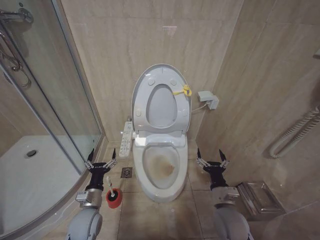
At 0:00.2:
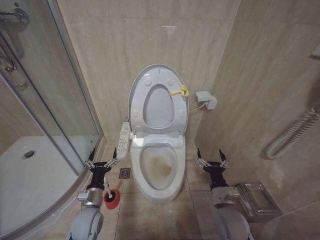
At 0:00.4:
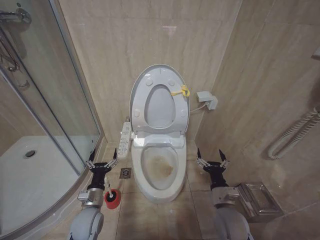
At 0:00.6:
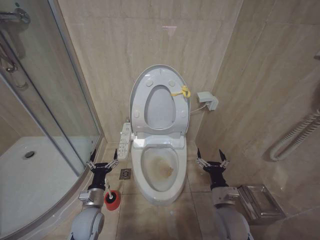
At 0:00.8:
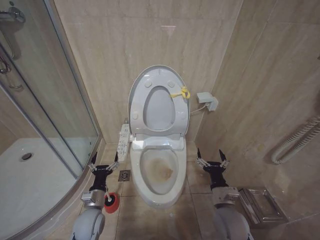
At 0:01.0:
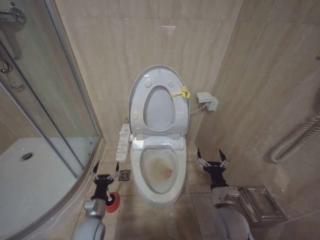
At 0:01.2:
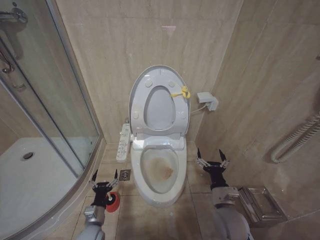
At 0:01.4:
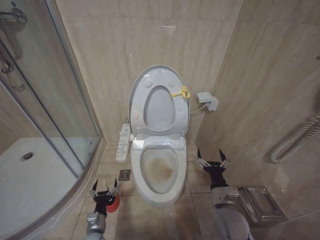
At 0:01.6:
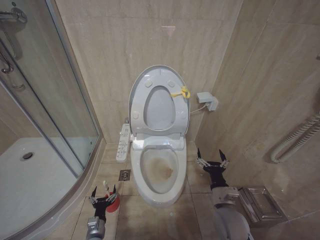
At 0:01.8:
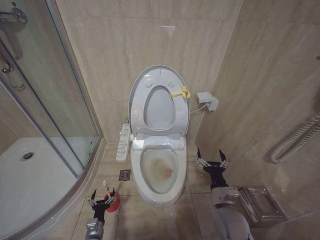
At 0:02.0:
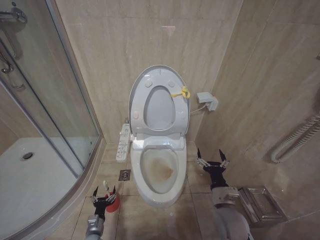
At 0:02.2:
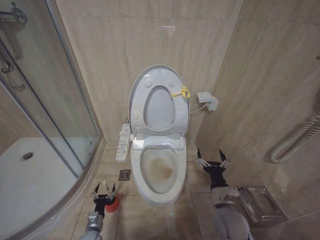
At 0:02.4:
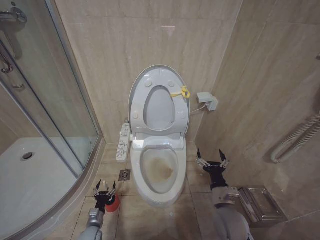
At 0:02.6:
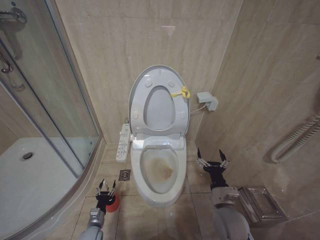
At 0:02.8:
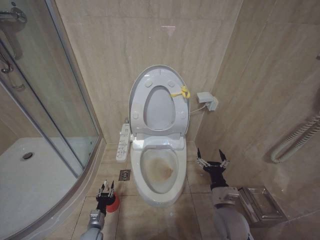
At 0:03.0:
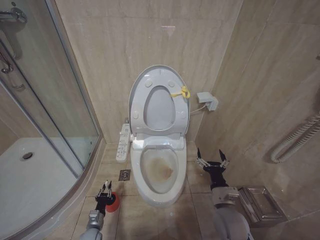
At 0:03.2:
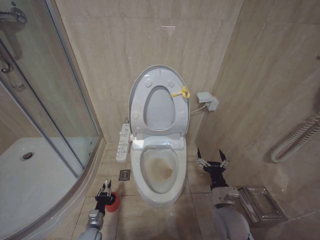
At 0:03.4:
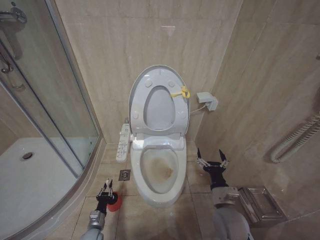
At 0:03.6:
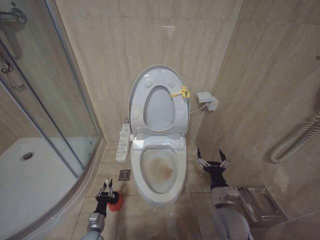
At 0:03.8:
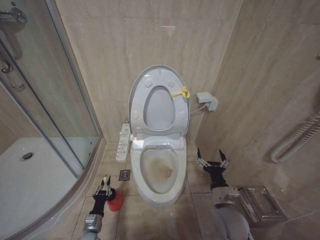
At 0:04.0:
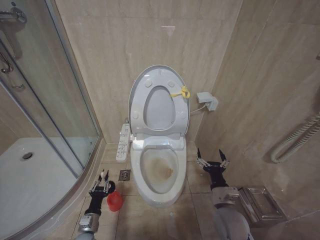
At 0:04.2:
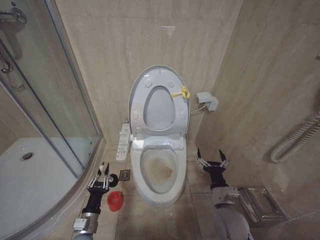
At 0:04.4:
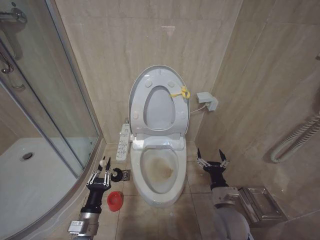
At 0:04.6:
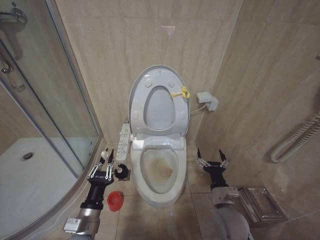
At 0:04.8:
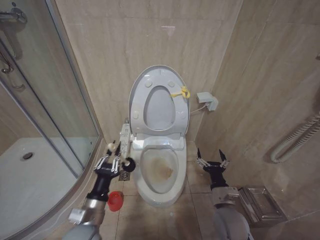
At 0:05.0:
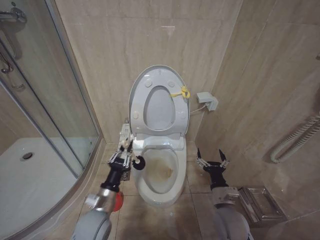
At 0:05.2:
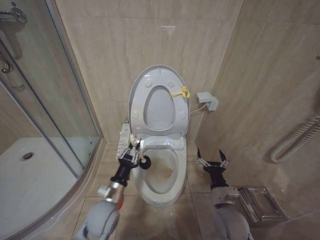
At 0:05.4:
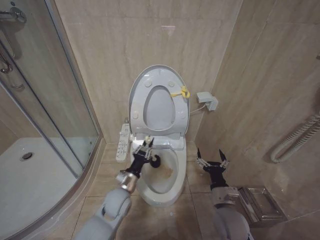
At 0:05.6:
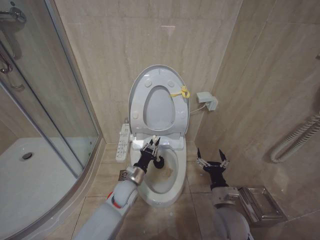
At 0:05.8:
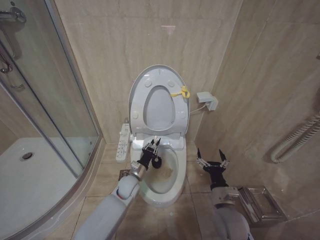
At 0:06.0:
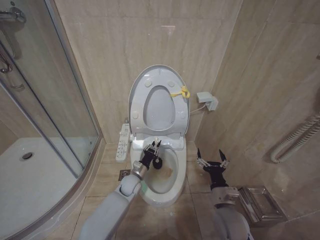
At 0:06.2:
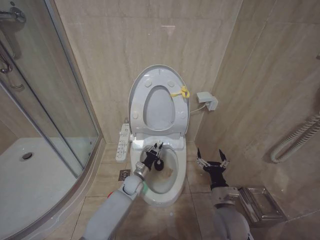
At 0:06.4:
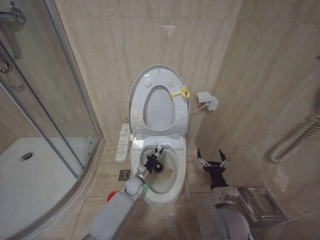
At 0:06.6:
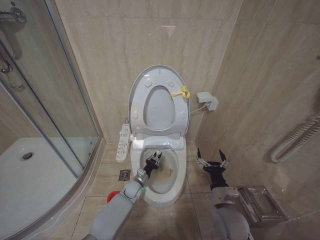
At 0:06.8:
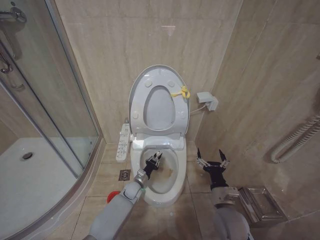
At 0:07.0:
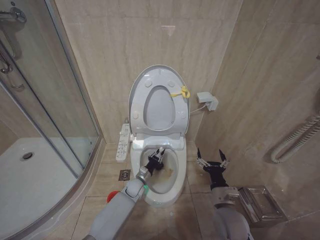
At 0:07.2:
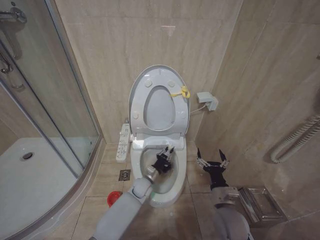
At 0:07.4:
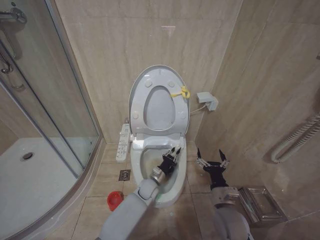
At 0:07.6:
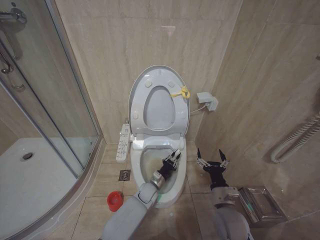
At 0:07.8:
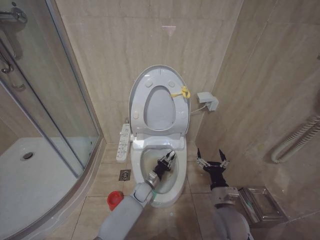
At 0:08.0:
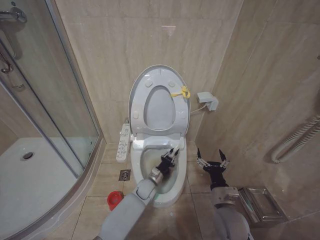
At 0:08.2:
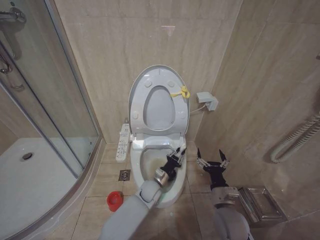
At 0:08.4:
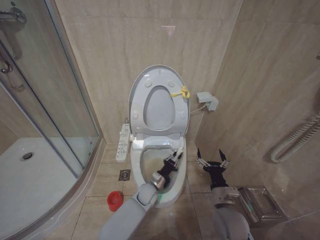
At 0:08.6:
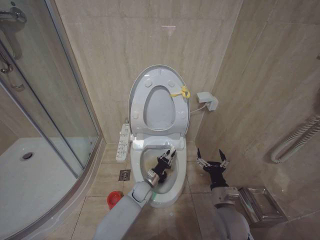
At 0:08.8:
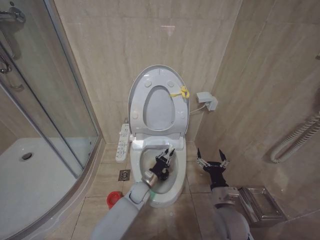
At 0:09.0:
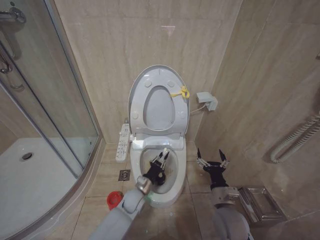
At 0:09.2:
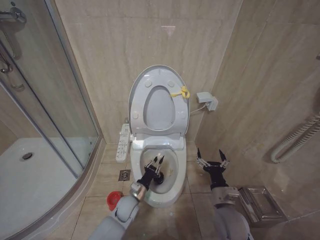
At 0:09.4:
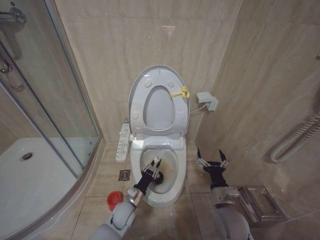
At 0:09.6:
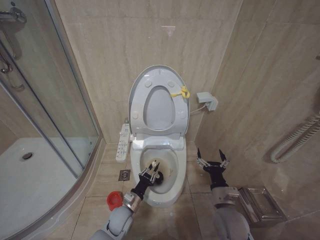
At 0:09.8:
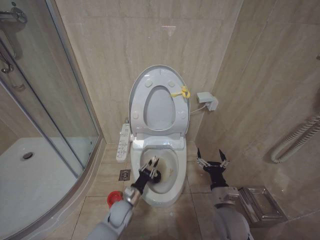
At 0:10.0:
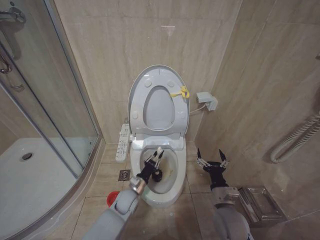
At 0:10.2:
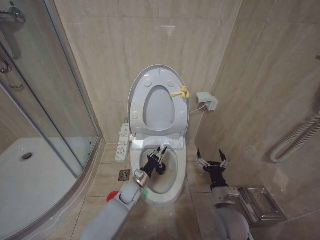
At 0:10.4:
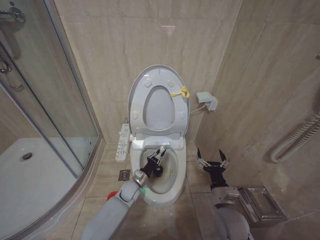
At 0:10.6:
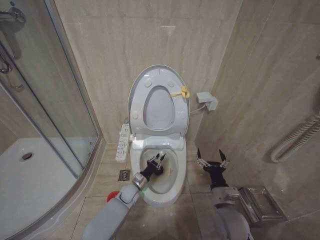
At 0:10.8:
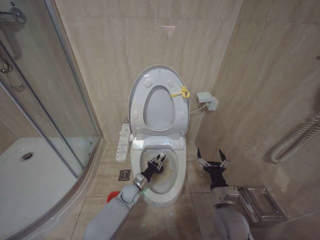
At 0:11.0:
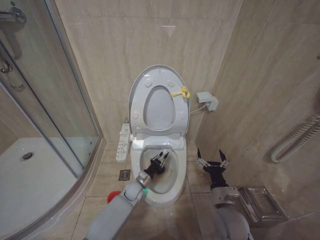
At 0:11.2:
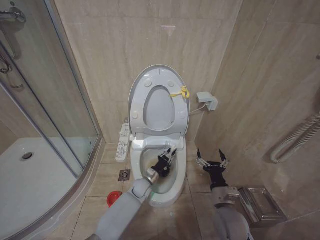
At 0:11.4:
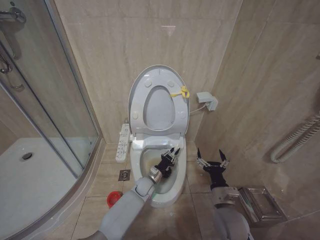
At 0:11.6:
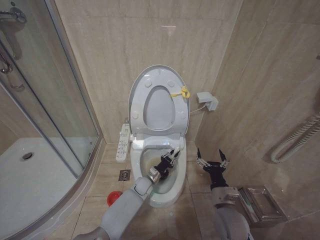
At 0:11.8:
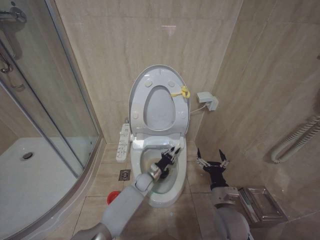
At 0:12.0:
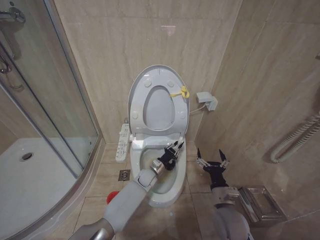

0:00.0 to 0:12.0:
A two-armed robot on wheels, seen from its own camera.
Task of the whole recording: Open the toilet lid, clean the toilet bowl with a toilet brush, close the toilet lid, and flush.
0:00.0 to 0:01.6: The left gripper goes roughly 15 cm downward.
0:01.6 to 0:03.0: The left gripper shifts roughly 5 cm downward, and closes up.
0:03.0 to 0:04.4: The left gripper moves upward, some 20 cm.
0:04.4 to 0:06.0: The left gripper is displaced forward and to the right by some 25 cm.
0:06.0 to 0:07.6: The left gripper travels to the right and downward by some 10 cm.
0:07.6 to 0:09.0: The left gripper is displaced to the left by roughly 5 cm.
0:09.0 to 0:10.4: The left gripper moves about 5 cm backward and comes back.
0:10.4 to 0:12.0: The left gripper shifts some 10 cm to the right and forward.

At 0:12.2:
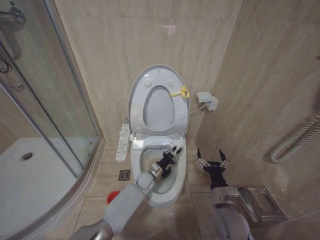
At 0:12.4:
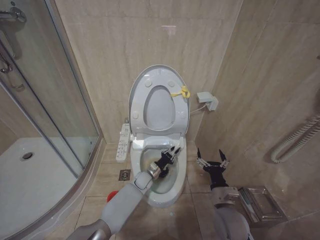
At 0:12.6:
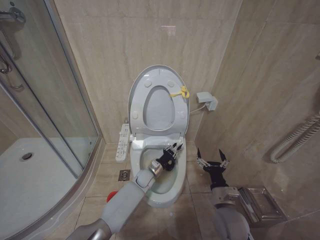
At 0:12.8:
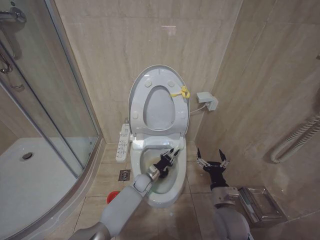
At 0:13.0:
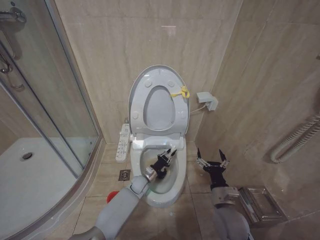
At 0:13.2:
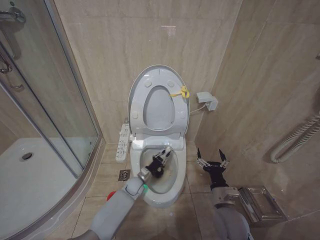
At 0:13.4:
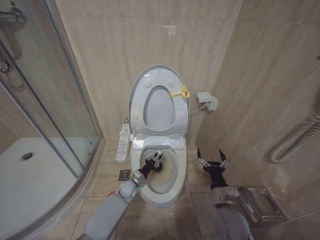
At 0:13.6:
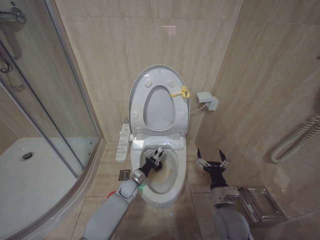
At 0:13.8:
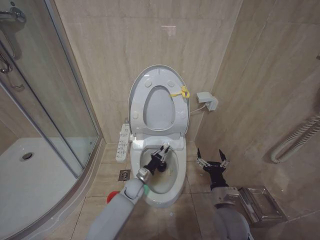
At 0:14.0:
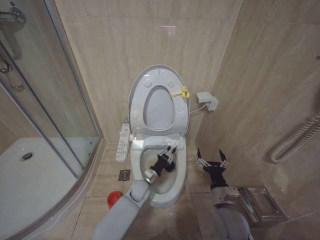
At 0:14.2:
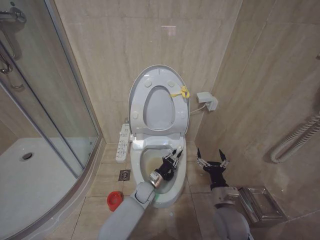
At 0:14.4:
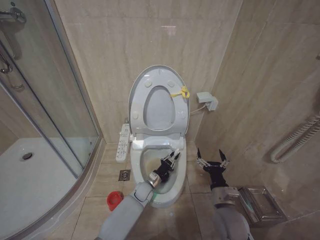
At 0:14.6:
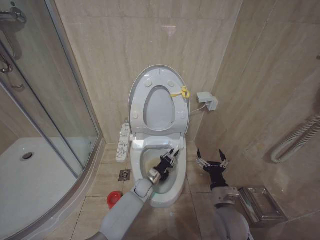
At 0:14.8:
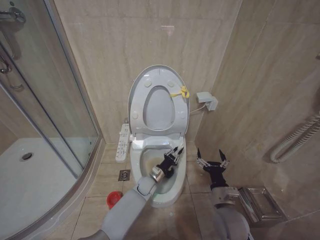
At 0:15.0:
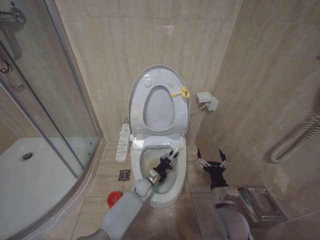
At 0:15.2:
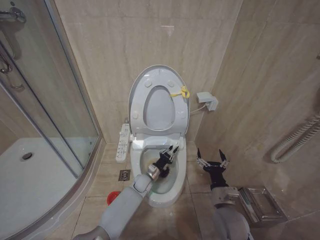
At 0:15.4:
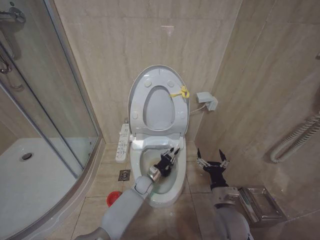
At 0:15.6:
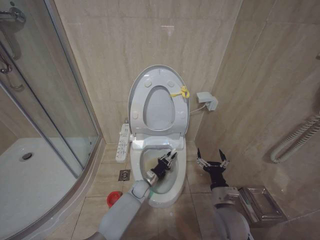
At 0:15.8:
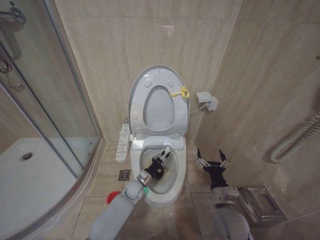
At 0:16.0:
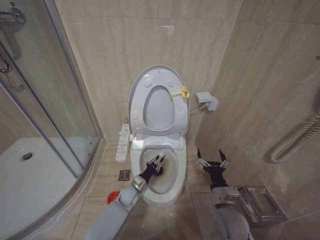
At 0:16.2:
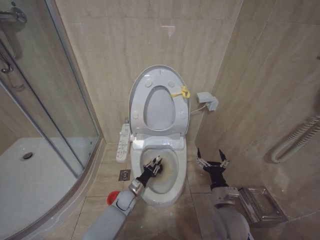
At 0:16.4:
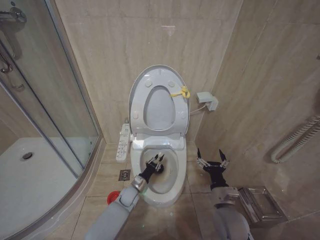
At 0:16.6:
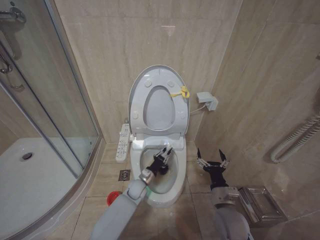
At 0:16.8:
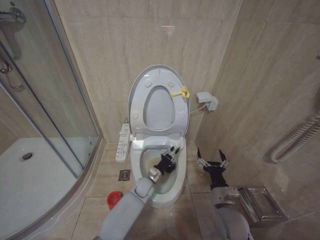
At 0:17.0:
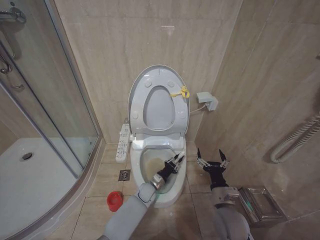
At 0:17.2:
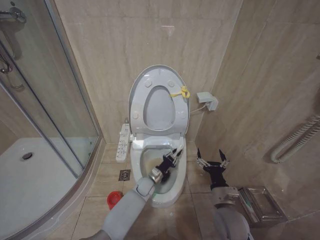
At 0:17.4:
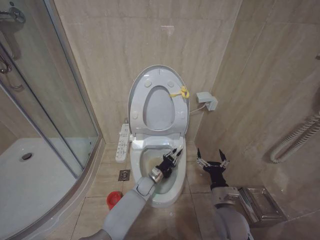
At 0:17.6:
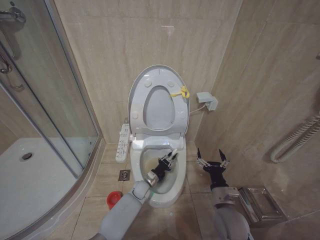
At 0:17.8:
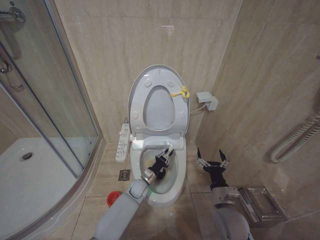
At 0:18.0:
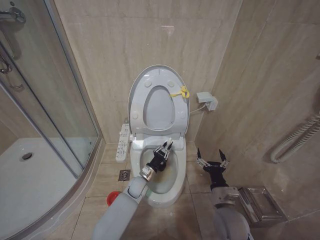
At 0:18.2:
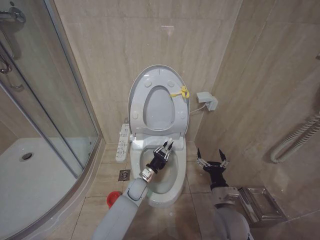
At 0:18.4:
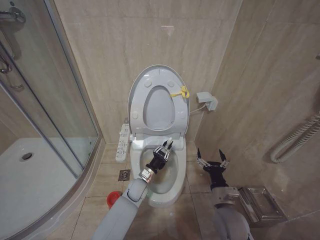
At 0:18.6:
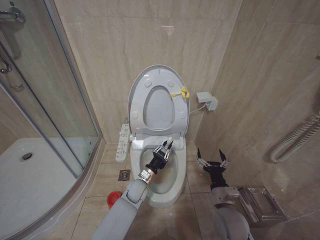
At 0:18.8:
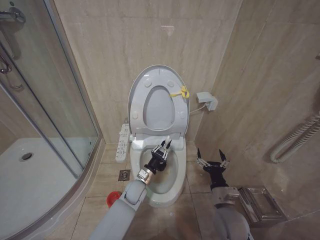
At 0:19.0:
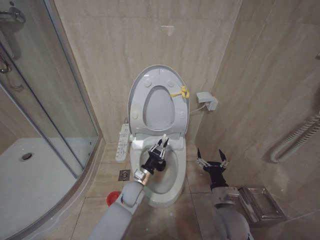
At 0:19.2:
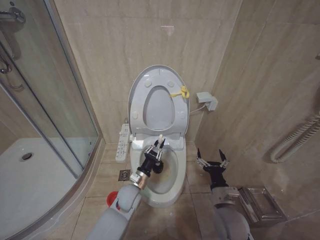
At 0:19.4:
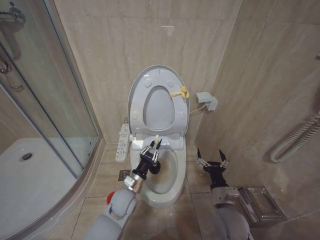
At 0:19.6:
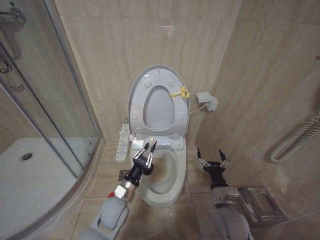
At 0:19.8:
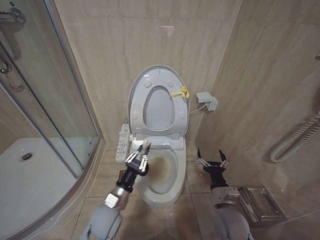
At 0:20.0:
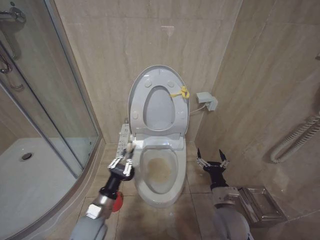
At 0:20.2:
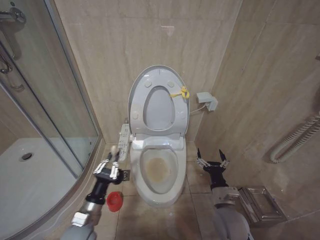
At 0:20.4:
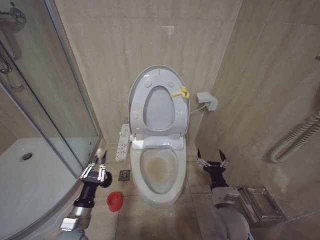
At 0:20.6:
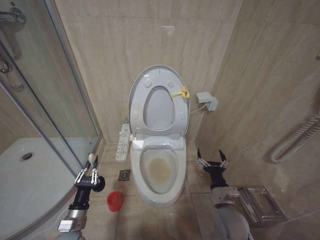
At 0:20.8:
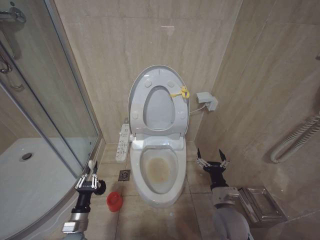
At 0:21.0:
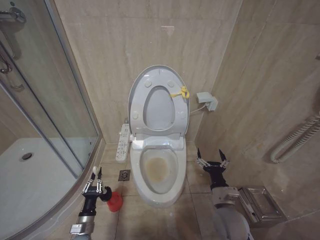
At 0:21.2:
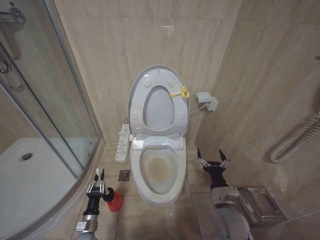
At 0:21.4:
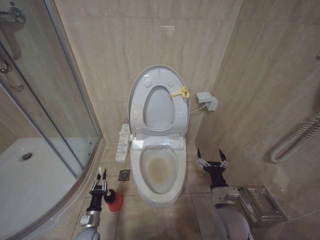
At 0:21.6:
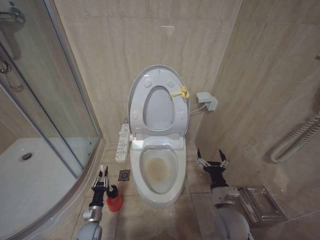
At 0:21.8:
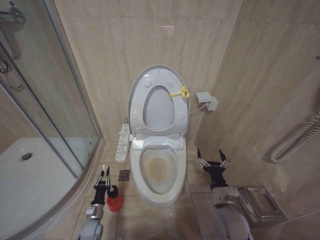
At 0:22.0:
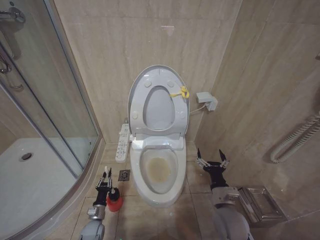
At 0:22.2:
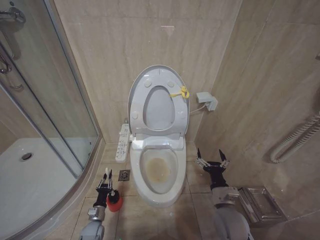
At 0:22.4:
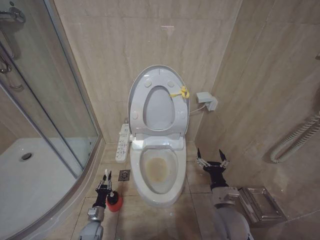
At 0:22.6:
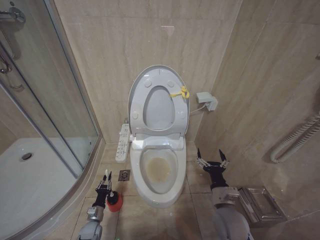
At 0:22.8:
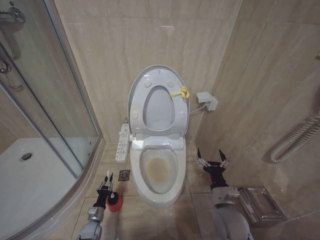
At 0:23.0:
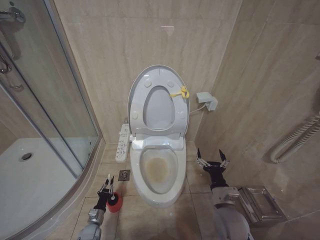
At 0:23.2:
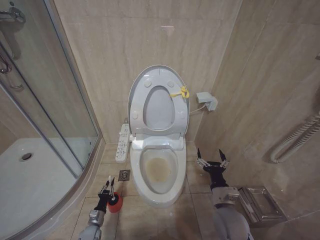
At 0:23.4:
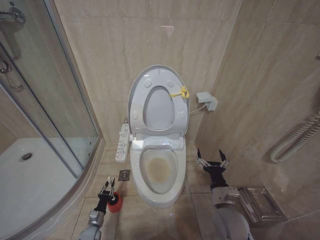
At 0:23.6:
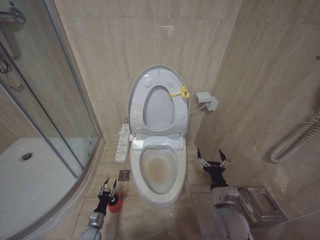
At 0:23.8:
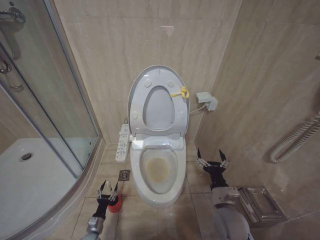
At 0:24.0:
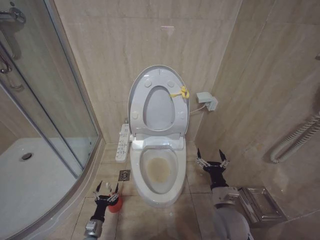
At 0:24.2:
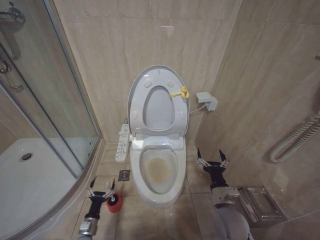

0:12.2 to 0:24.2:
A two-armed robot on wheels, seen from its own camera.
Task of the whole recording: Open the toilet lid, clean the toilet bowl with a toilet brush, close the toilet lid, and flush.
0:12.2 to 0:13.8: The left gripper travels to the left by approximately 5 cm.
0:13.8 to 0:15.2: The left gripper ends up some 5 cm from where it was.
0:16.6 to 0:18.2: The left gripper reaches approximately 10 cm to the right, then returns.
0:18.2 to 0:19.8: The left gripper is displaced backward, upward and to the left by approximately 20 cm.
0:19.8 to 0:21.2: The left gripper is displaced downward and to the left by about 20 cm.
0:21.2 to 0:22.6: The left gripper heads downward and forward, covering about 10 cm.
0:22.6 to 0:24.2: The left gripper shifts roughly 5 cm backward, and opens.
